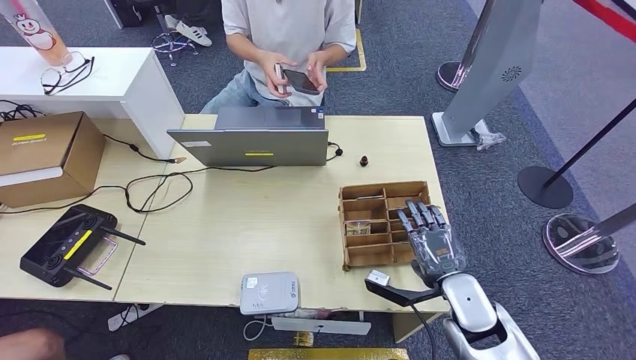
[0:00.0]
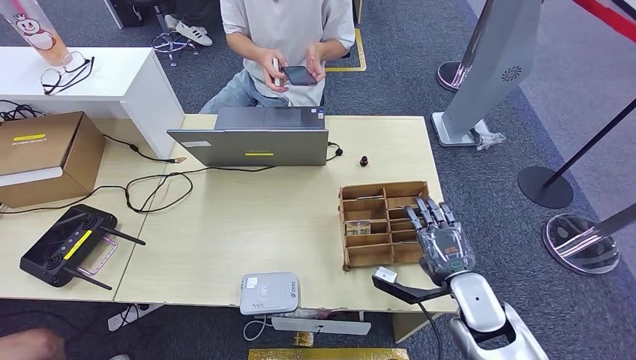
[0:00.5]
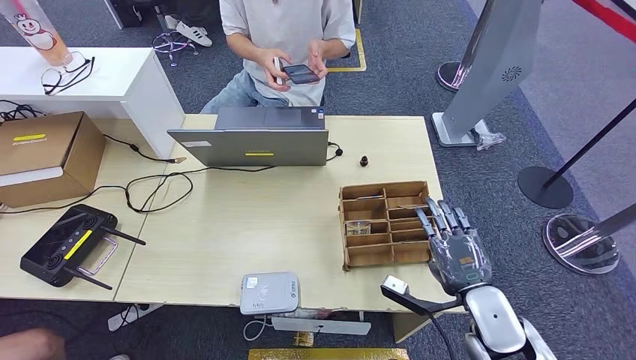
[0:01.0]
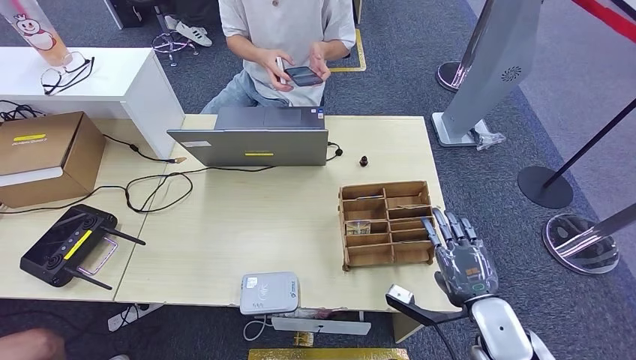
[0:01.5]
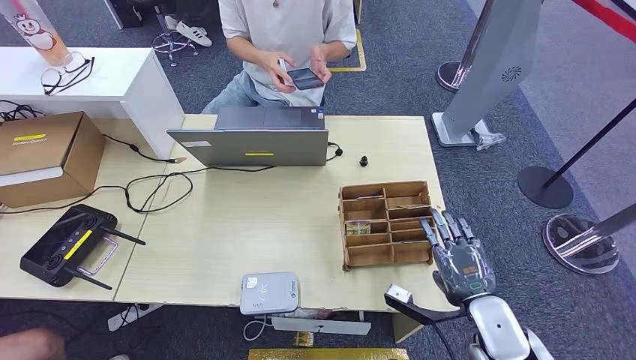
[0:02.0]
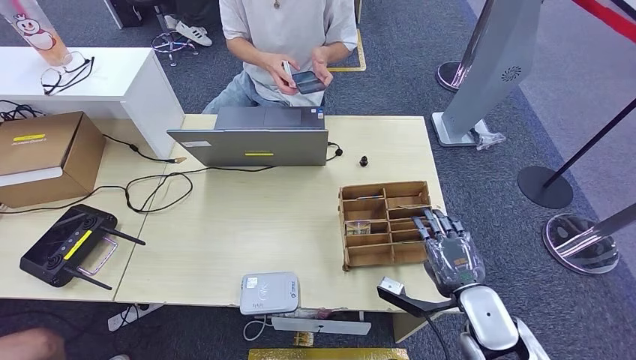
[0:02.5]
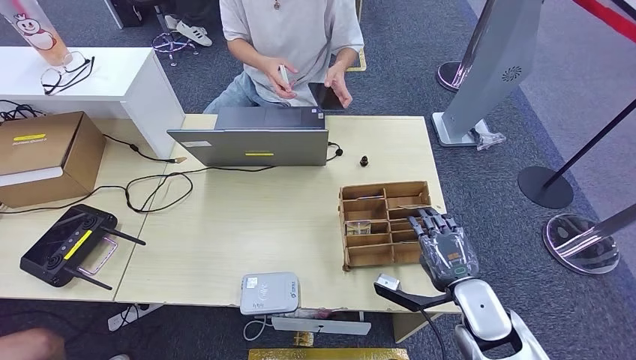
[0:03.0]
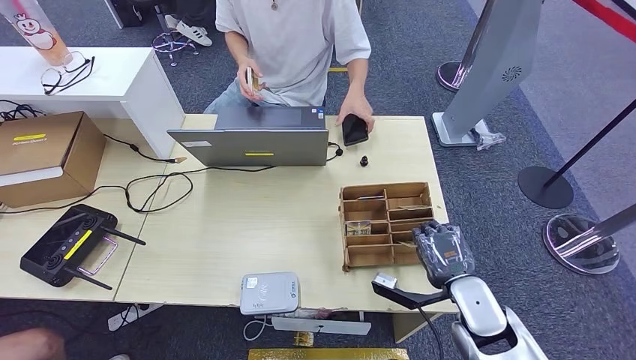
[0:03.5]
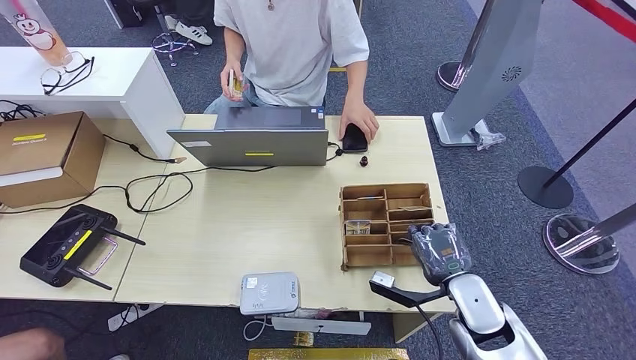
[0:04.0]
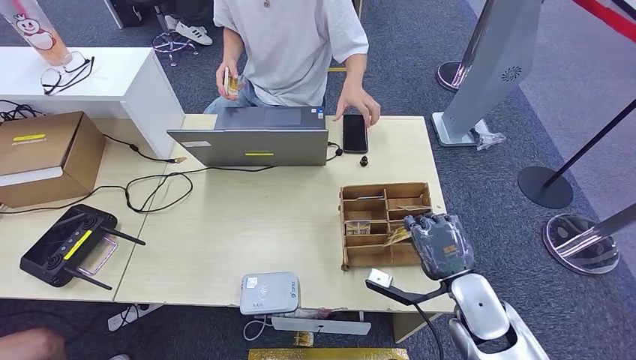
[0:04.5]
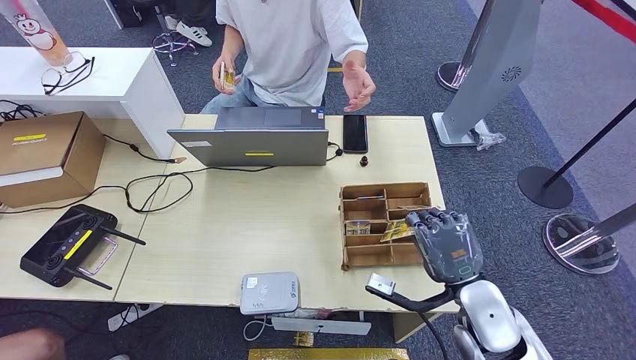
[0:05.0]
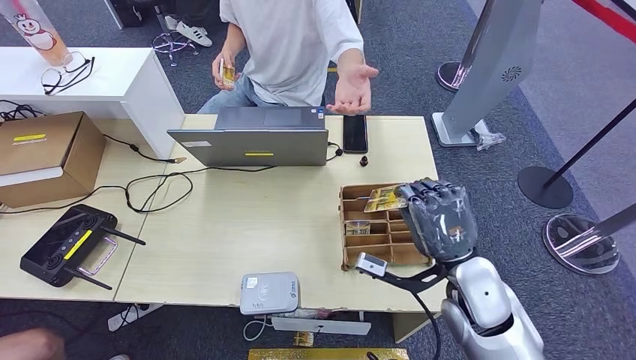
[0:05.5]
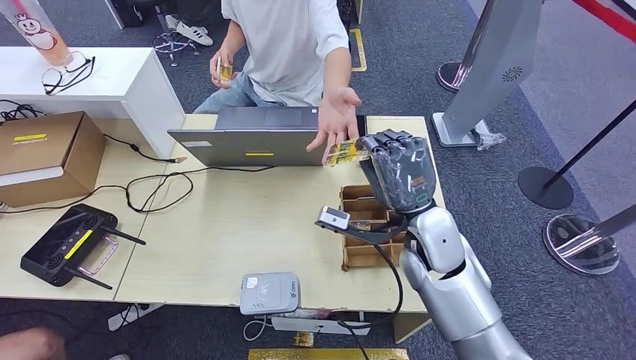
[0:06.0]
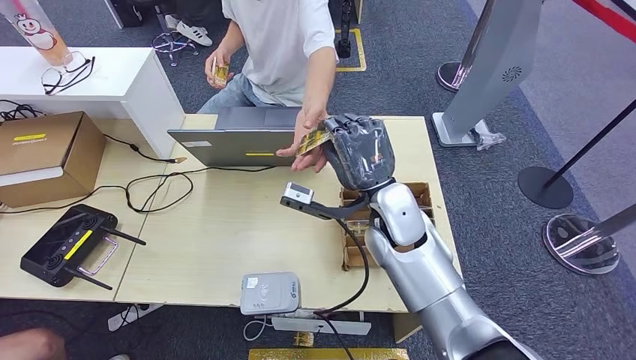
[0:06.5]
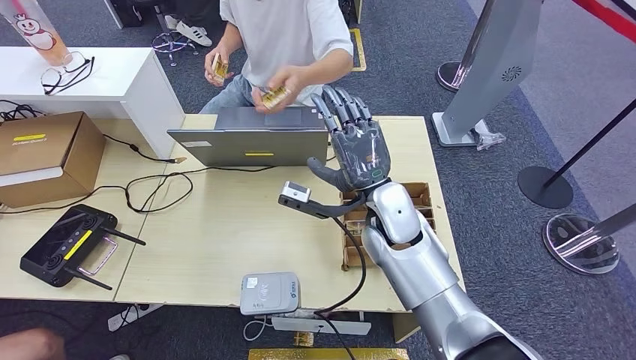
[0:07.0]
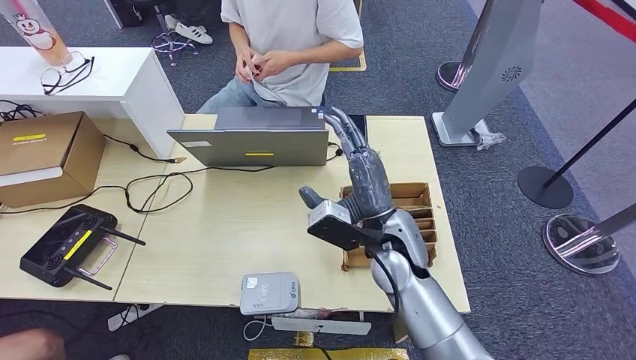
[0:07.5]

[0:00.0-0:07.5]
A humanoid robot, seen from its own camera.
Step, 0:00.0 to 0:05.0: Pick up the room key from the key card box.
Step, 0:05.5 to 0:07.5: Hand the room key to the person.
0:00.0 to 0:02.0: The right hand shifts by some 5 cm.
0:02.0 to 0:04.0: The hands make only small movements.
0:04.0 to 0:05.5: The right hand goes some 10 cm upward.
0:05.5 to 0:07.5: The right hand shifts roughly 15 cm to the left and forward.
